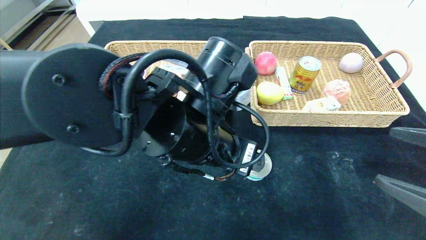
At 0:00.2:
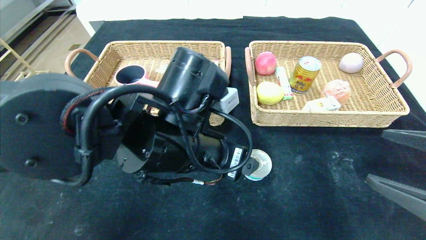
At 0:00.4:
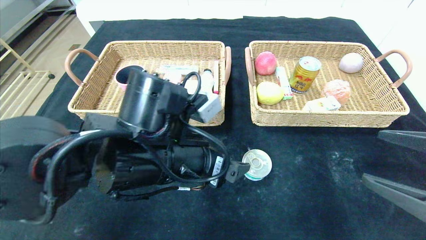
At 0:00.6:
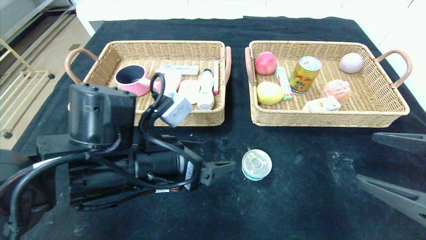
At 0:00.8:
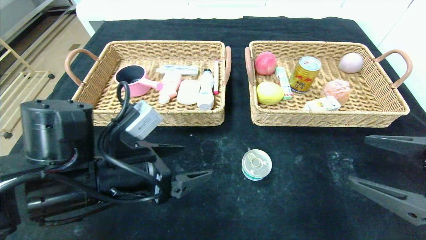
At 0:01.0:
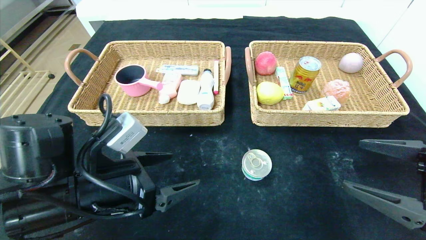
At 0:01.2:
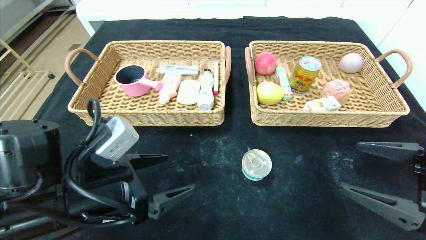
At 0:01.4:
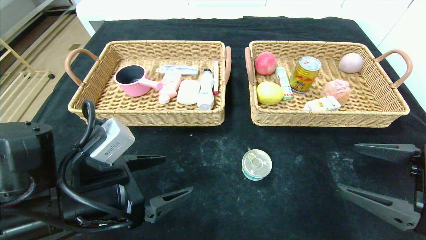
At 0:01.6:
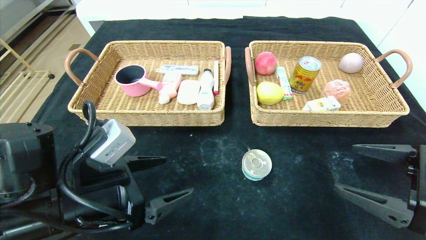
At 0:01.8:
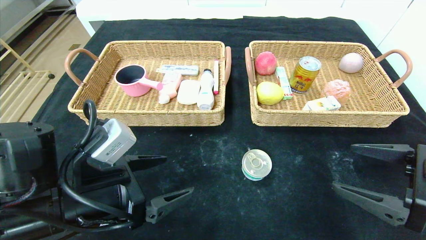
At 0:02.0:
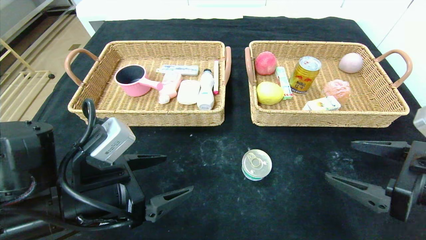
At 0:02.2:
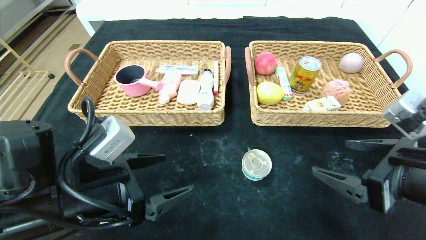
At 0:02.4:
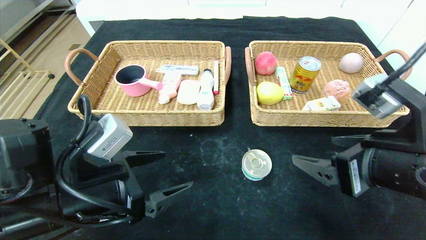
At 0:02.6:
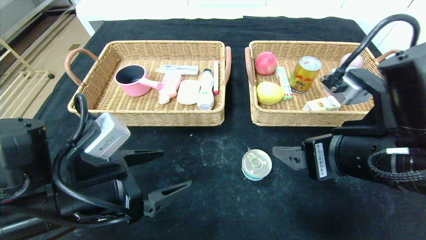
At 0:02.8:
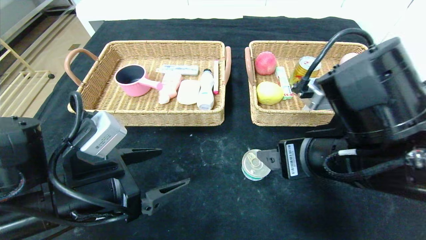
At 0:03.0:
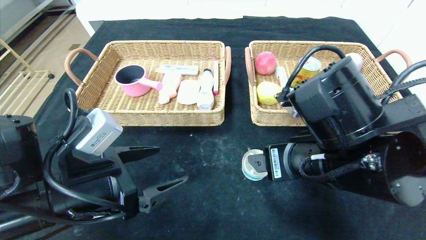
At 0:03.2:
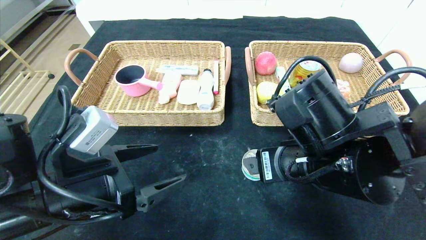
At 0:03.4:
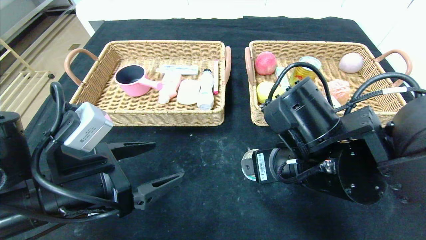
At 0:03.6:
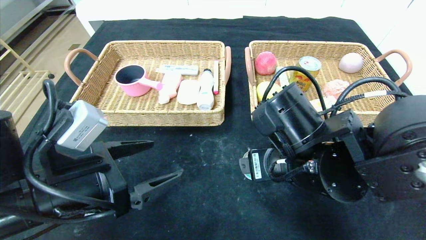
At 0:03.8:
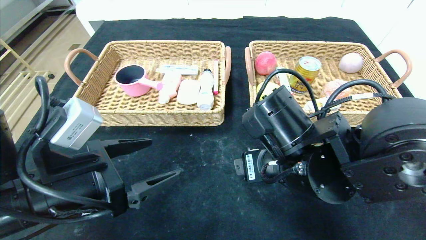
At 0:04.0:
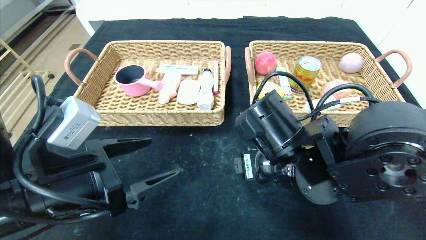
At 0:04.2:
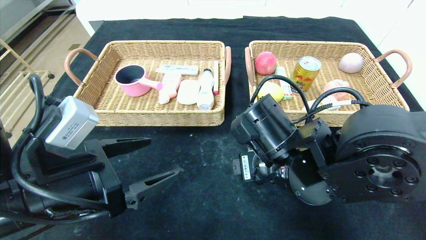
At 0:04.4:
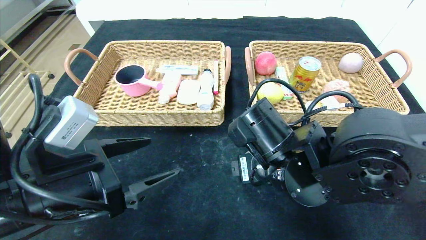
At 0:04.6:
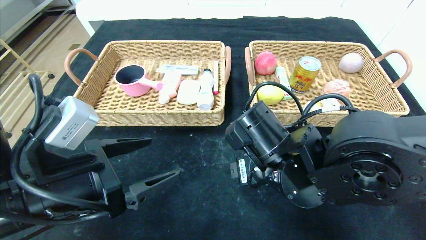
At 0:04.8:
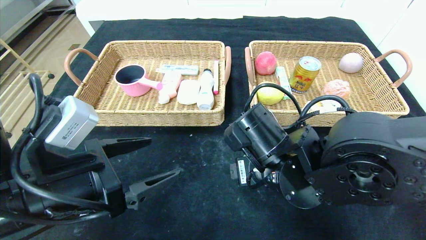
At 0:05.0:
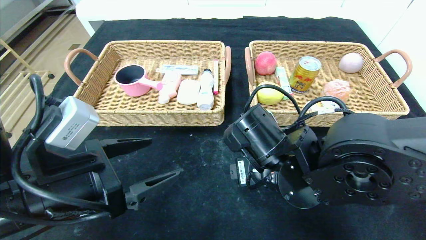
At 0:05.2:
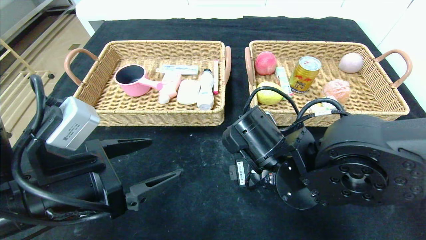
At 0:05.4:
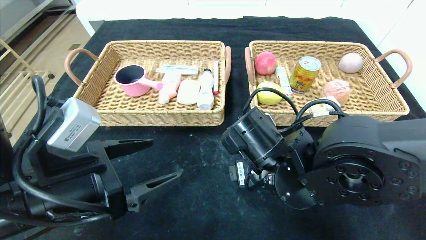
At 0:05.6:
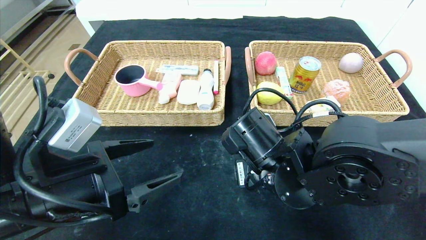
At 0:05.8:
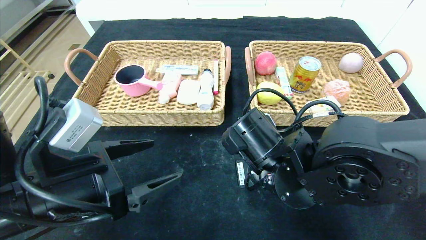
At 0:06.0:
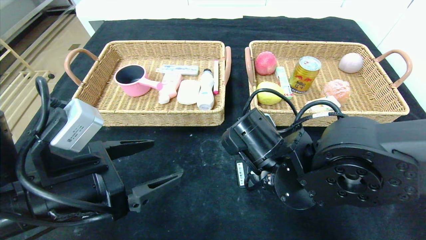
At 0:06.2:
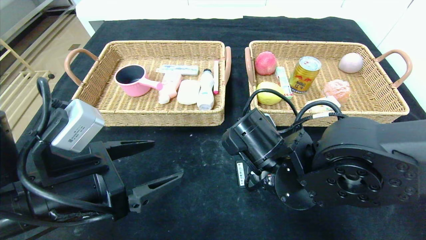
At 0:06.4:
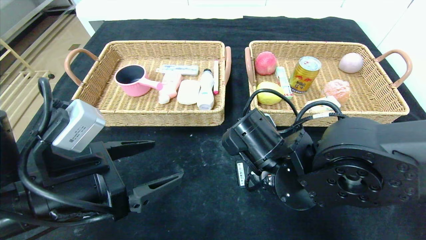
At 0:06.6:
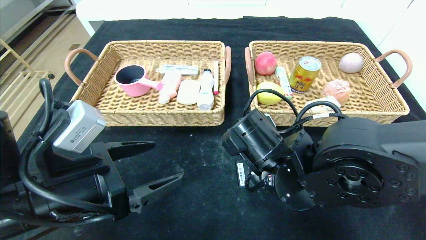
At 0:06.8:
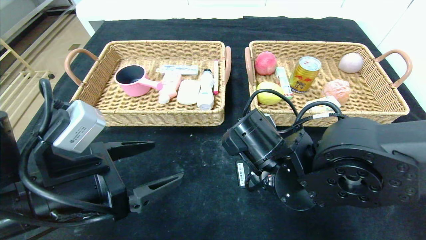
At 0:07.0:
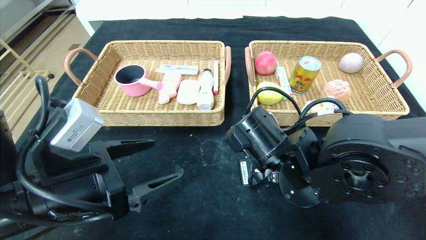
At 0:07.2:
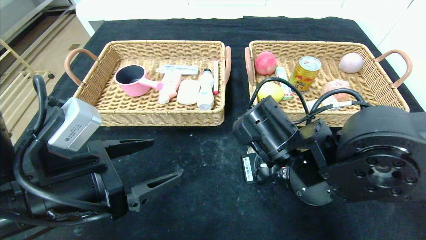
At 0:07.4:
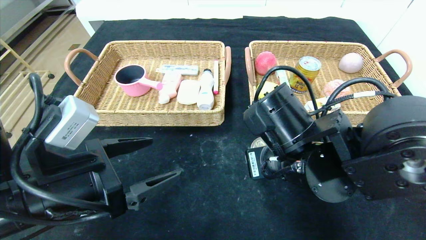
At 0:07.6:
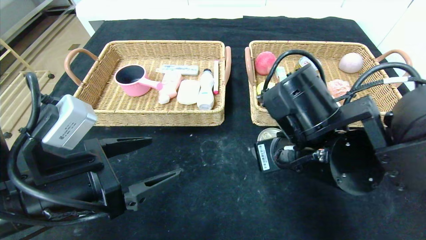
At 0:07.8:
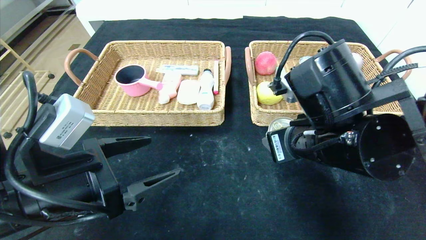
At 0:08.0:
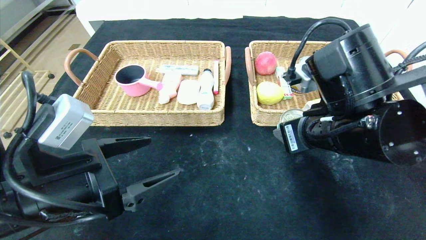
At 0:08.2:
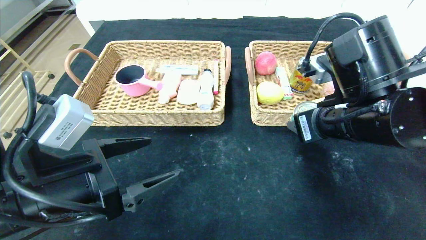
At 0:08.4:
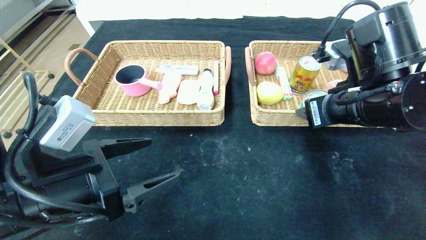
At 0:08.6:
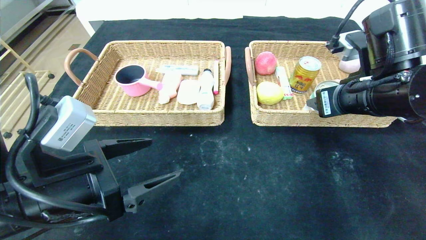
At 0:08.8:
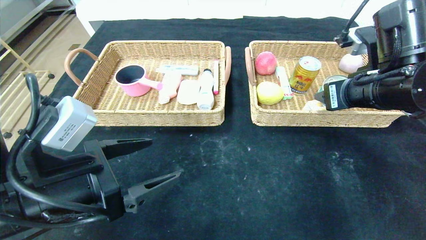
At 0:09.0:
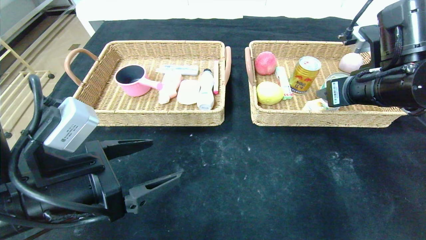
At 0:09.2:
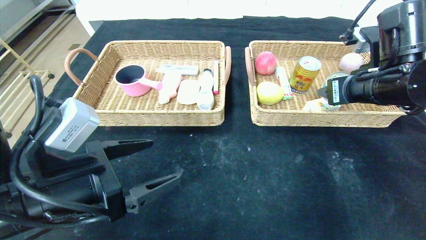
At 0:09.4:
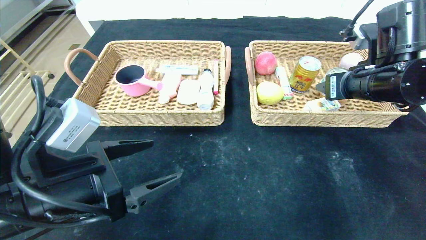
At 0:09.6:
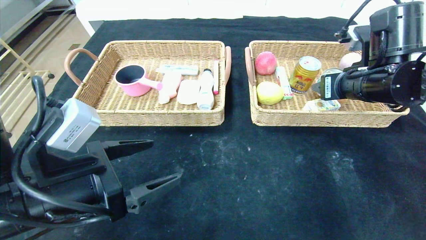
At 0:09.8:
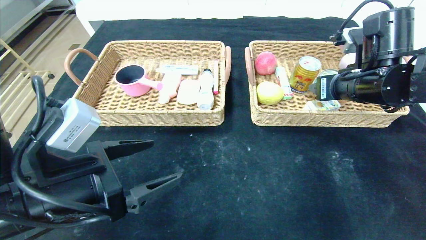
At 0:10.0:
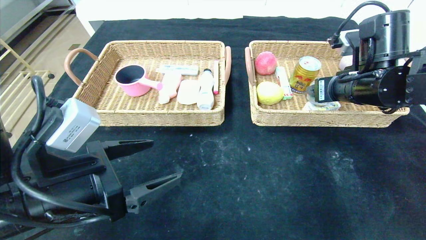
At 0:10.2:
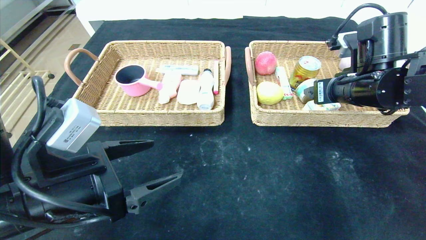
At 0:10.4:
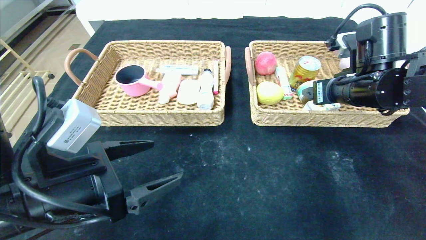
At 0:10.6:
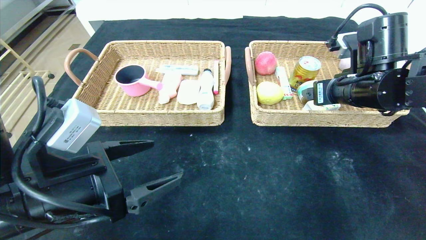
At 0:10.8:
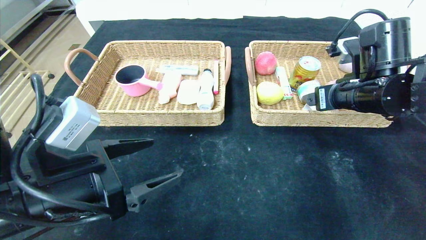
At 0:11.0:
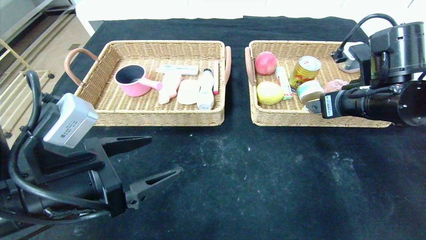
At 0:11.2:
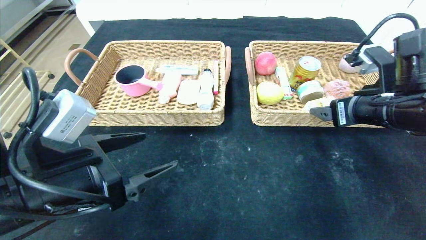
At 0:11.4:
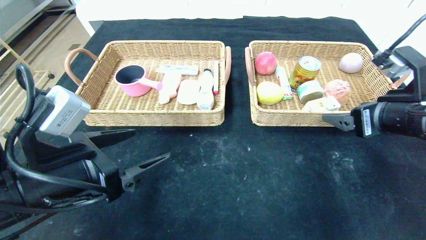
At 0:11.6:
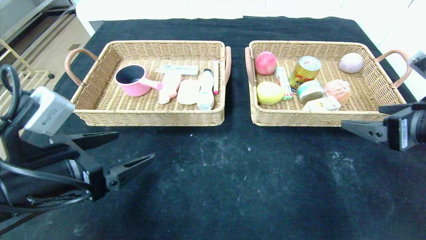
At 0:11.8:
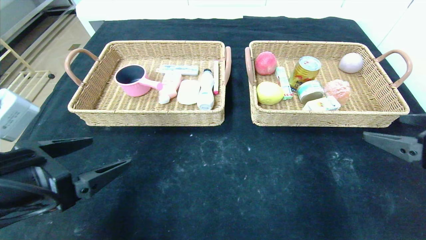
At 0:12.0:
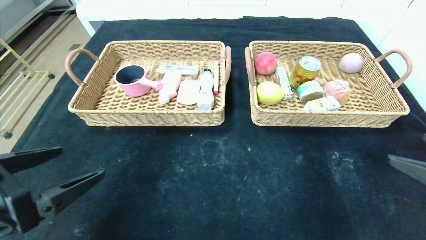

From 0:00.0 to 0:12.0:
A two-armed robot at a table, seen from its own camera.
Step, from 0:00.0 to 0:10.2: Grasp the can and put it in the right basket.
From 0:00.0 to 0:01.6: The left gripper travels to the left and downward by some 15 cm.
From 0:01.6 to 0:03.0: The right gripper goes approximately 15 cm to the left.
From 0:03.0 to 0:04.4: The right gripper moves about 5 cm.
From 0:04.4 to 0:06.0: The right gripper closes up.
From 0:06.0 to 0:07.6: The right gripper shifts about 5 cm upward.
From 0:07.6 to 0:09.0: The right gripper travels to the right, forward and upward by roughly 15 cm.
From 0:09.0 to 0:10.4: There are only small adjustments of the grippers.
From 0:10.4 to 0:12.0: The right gripper moves backward and to the right, roughly 25 cm, while the left gripper heads to the left and backward, covering roughly 10 cm.

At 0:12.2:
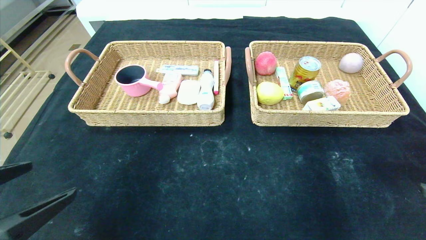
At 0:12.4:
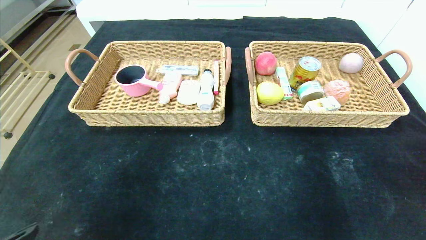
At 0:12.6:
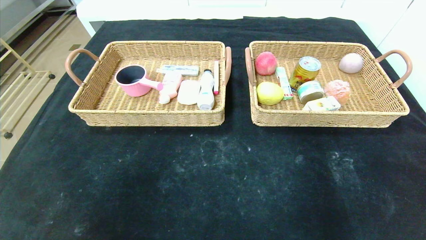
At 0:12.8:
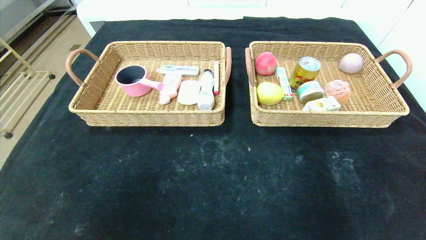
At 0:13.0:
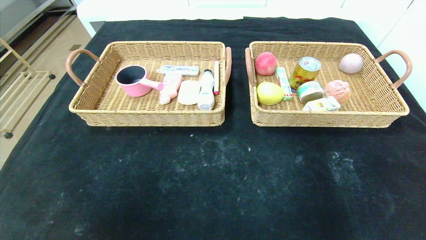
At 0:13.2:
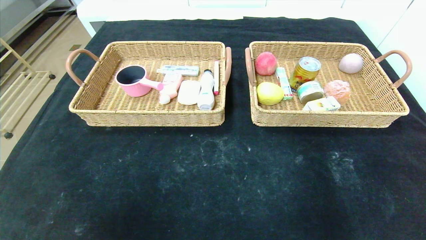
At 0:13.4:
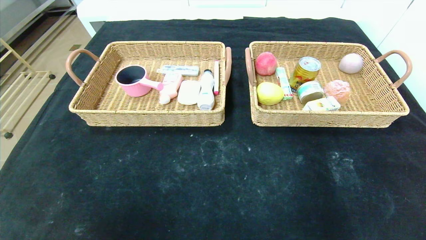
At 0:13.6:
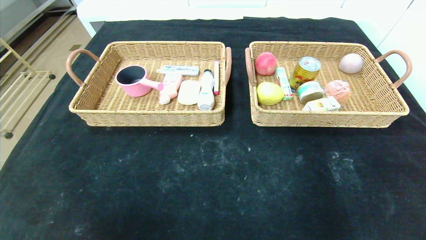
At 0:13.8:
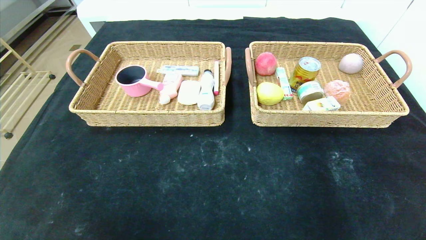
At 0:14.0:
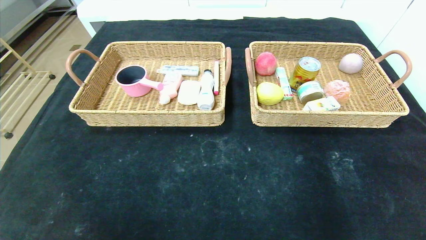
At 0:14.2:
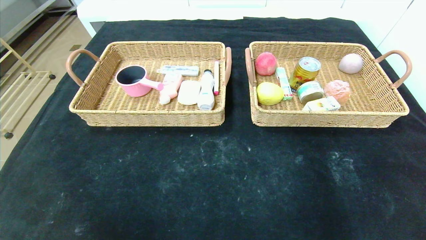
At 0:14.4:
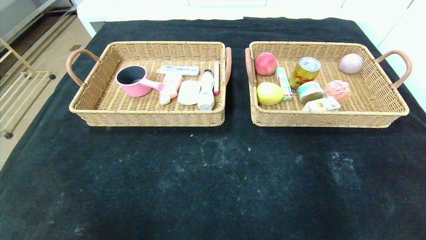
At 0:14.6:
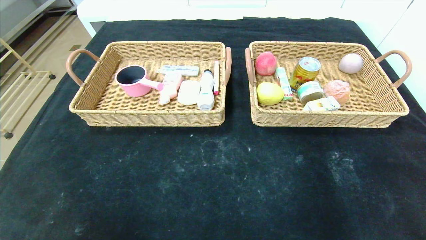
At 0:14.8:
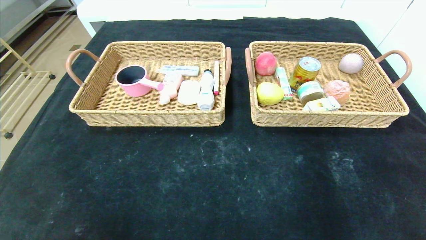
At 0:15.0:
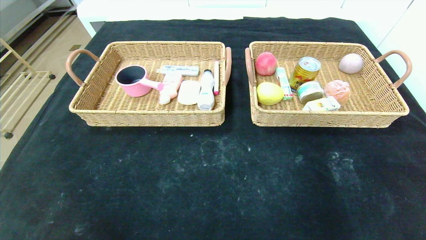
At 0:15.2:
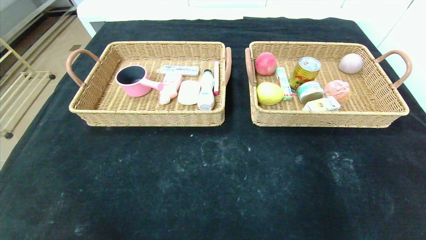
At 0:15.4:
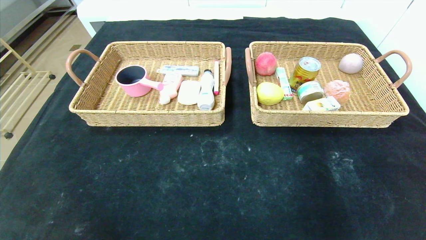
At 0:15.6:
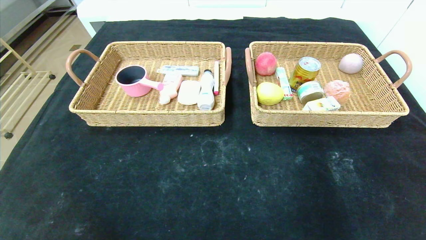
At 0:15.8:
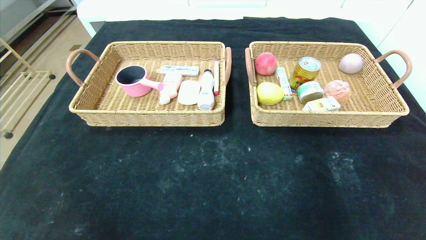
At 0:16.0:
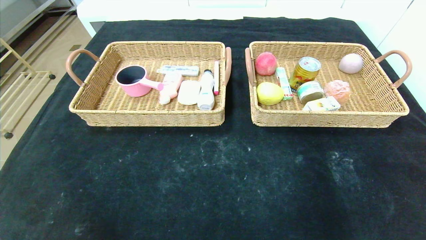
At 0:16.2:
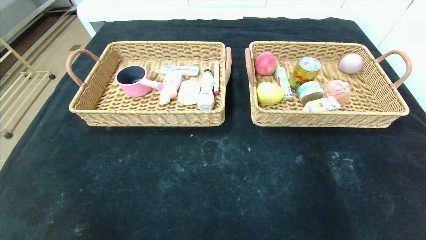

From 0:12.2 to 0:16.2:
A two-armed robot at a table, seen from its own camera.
From 0:12.2 to 0:13.6: The right gripper heads backward and downward, covering approximately 15 cm. Meanwhile the left gripper goes some 15 cm backward.
